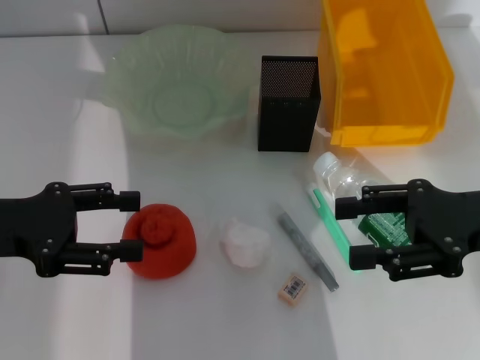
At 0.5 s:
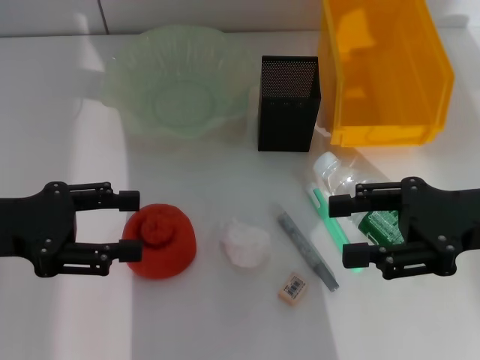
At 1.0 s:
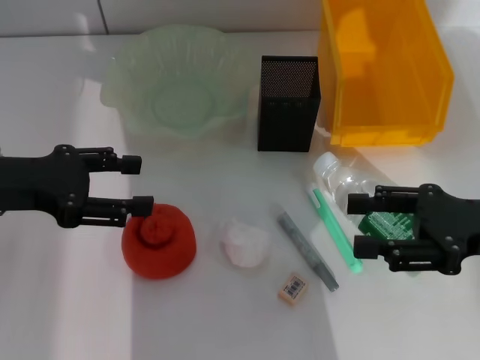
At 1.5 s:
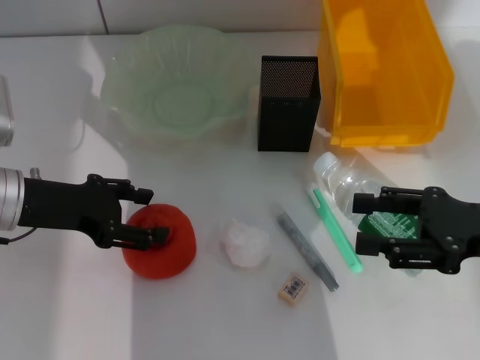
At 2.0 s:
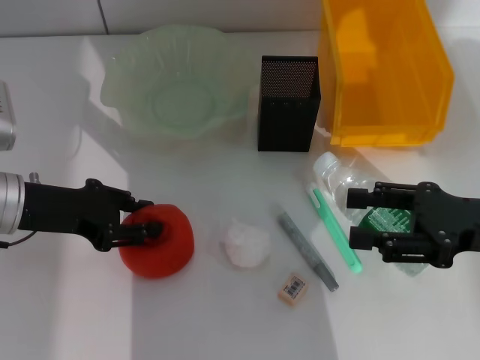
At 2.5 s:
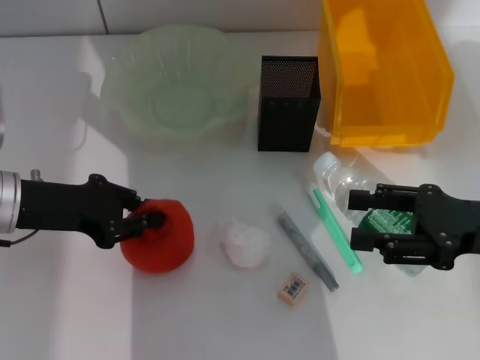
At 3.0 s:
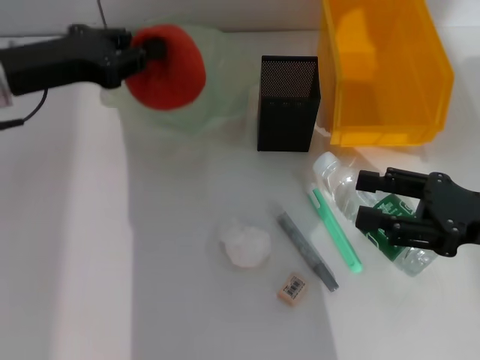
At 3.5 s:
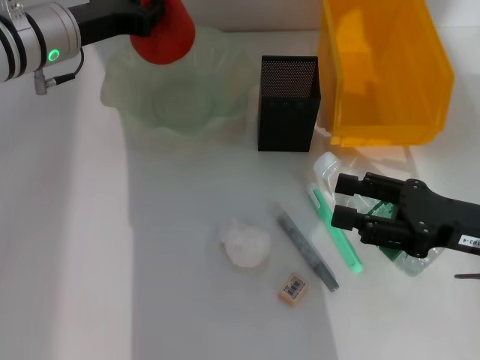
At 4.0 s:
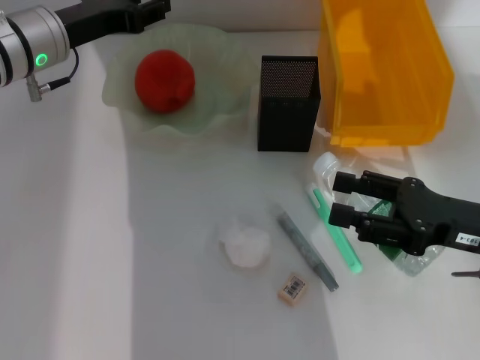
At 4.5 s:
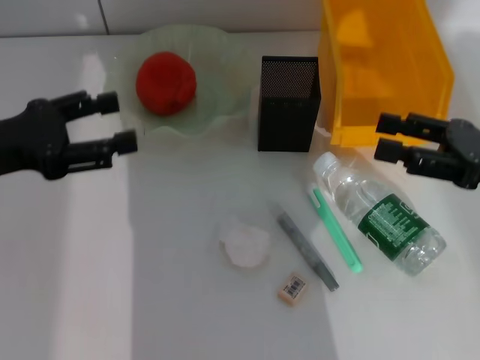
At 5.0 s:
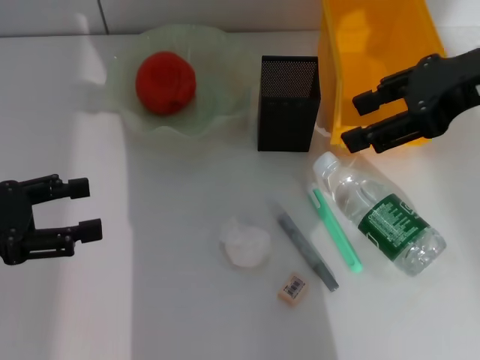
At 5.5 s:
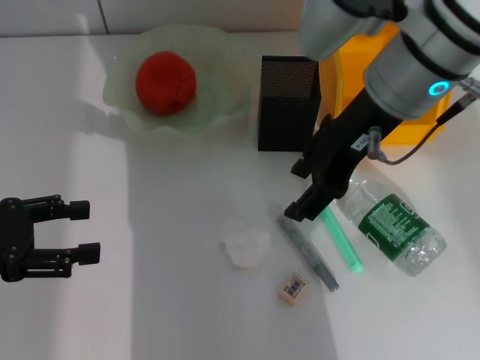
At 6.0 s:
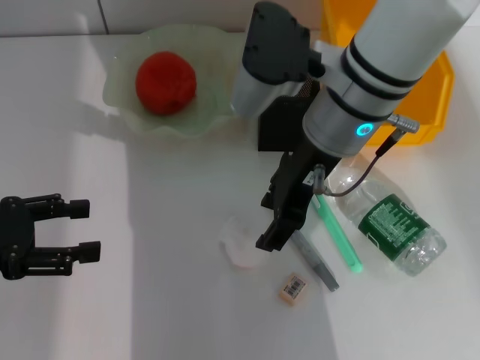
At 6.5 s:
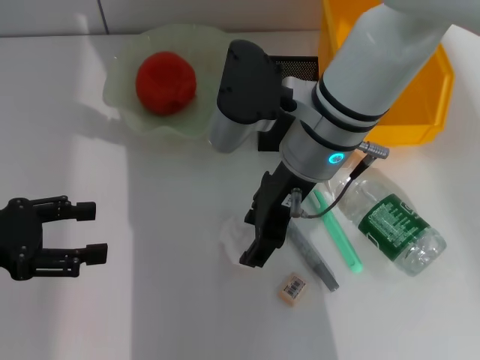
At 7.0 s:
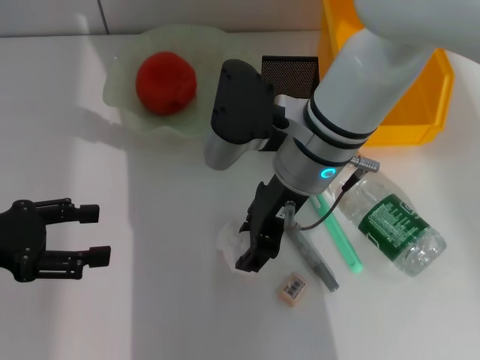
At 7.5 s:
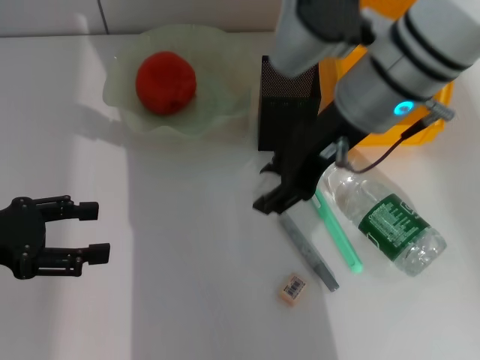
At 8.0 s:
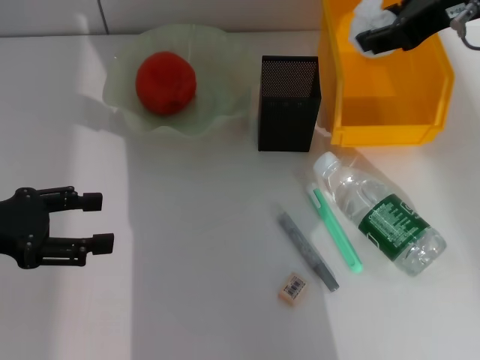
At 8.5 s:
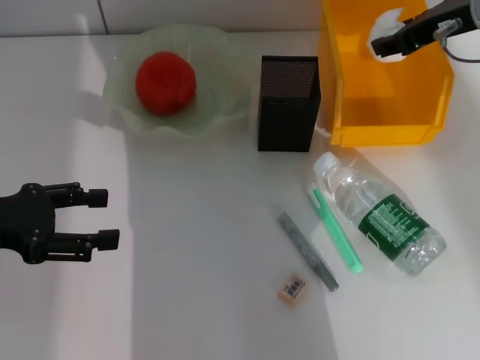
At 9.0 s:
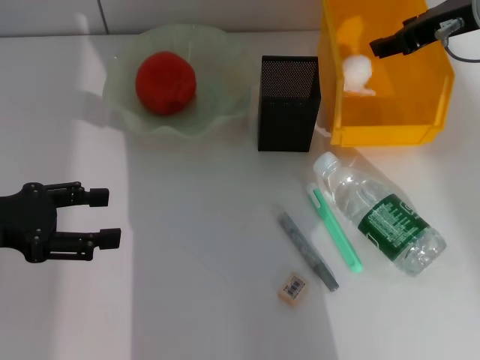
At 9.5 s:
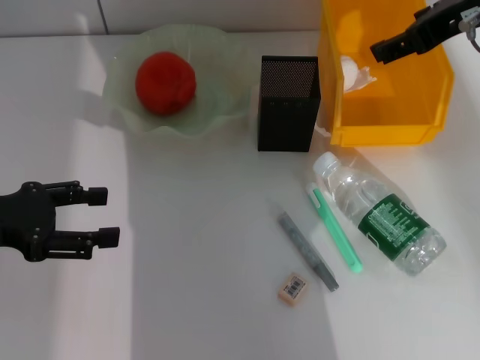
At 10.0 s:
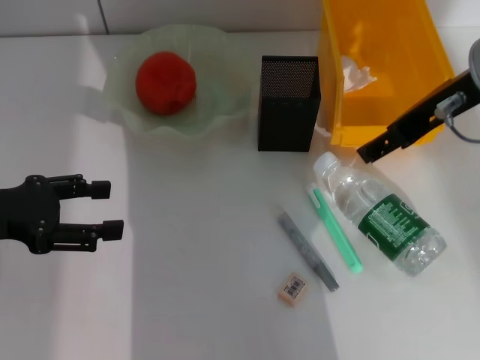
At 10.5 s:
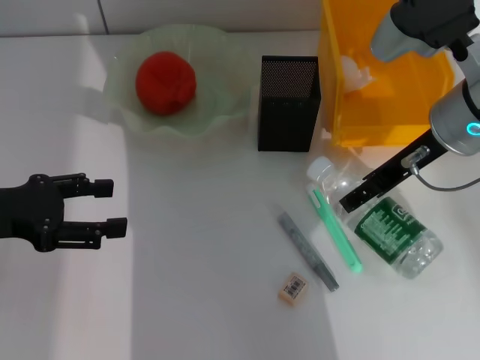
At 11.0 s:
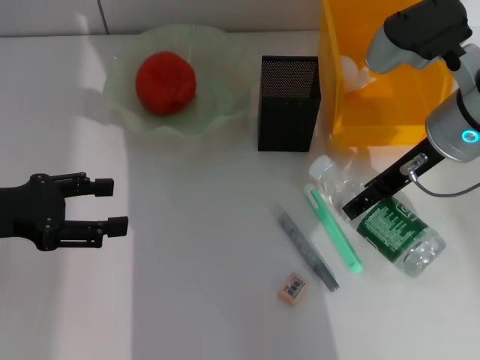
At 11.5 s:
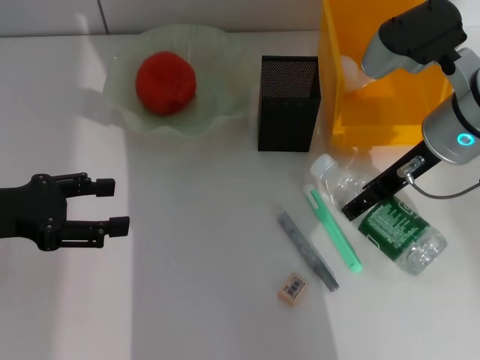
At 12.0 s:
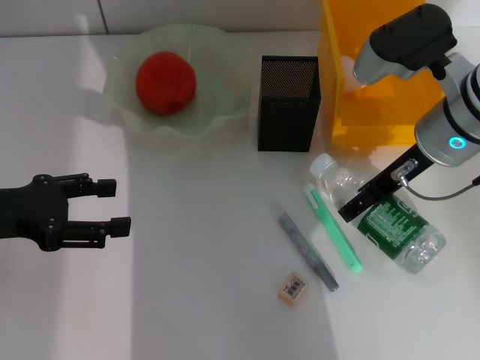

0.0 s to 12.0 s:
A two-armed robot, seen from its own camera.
Step, 0.0 to 2.0 s: Grab the orange with the left hand.
Step, 2.5 to 4.0 s: Place the orange into the fruit bowl with the left hand.
Step, 4.5 to 6.5 s: Grab the paper ball with the right hand.
Step, 7.5 to 9.0 s: Place the paper ball into the trash can with the right hand.
0.0 to 2.0 s: The left gripper goes roughly 5 cm forward, and closes.
2.0 to 4.0 s: The left gripper shifts approximately 10 cm forward.
4.0 to 6.0 s: The right gripper travels to the left, forward and upward by roughly 25 cm. The left gripper goes some 20 cm backward and to the left, and opens its fingers.
6.0 to 8.0 s: The right gripper goes roughly 15 cm to the right and upward.
8.0 to 10.0 s: The right gripper moves some 5 cm, and opens its fingers.
10.0 to 12.0 s: The right gripper is displaced downward by some 10 cm.

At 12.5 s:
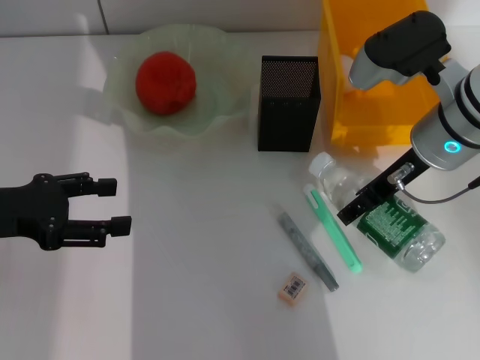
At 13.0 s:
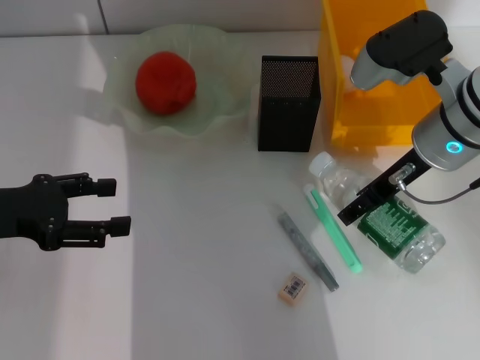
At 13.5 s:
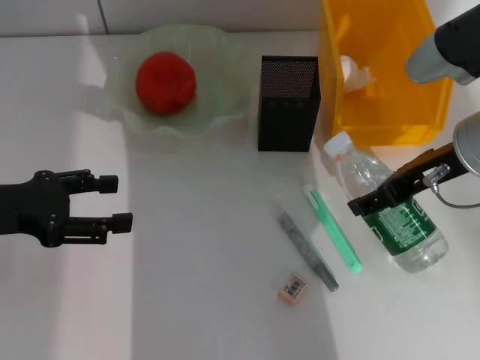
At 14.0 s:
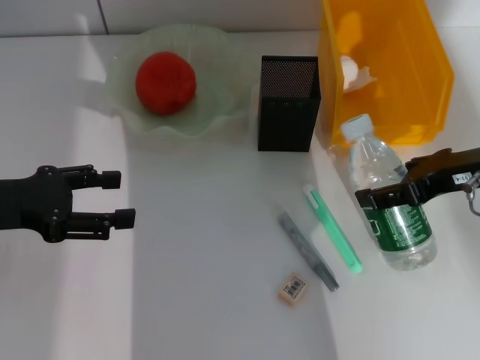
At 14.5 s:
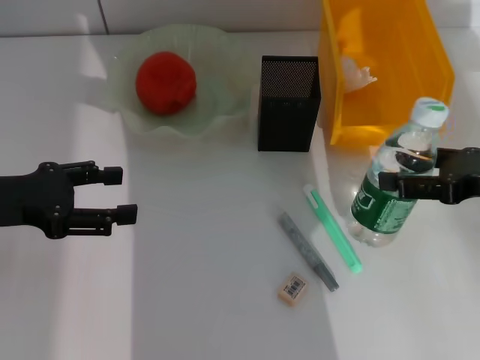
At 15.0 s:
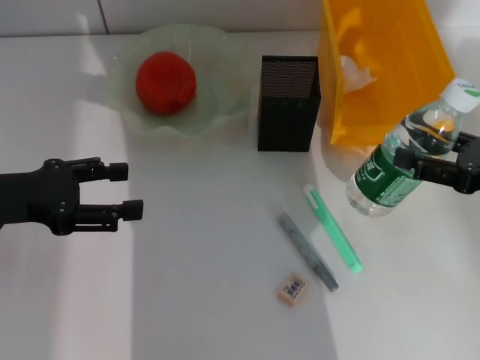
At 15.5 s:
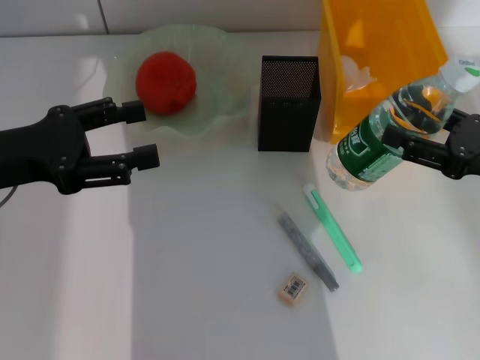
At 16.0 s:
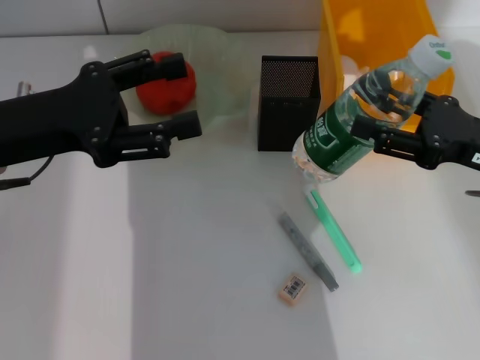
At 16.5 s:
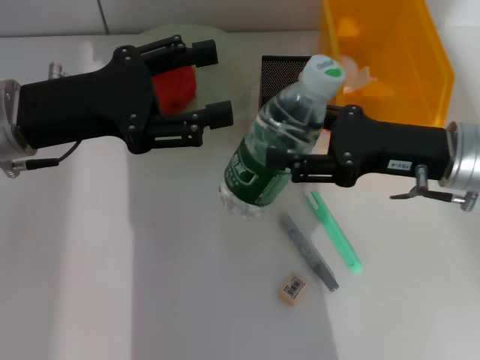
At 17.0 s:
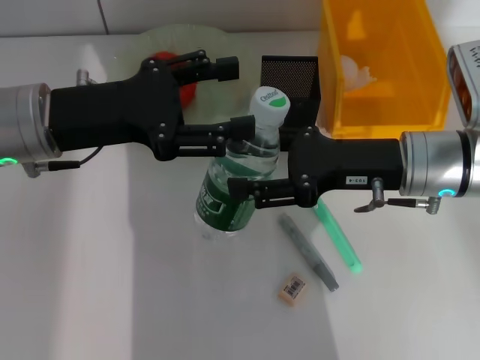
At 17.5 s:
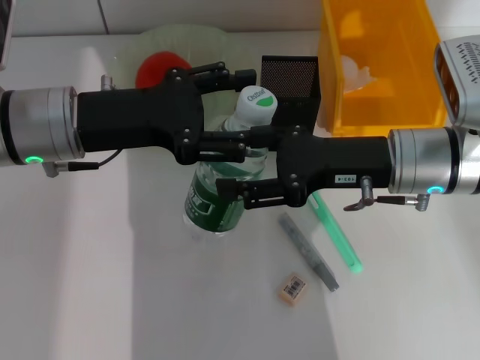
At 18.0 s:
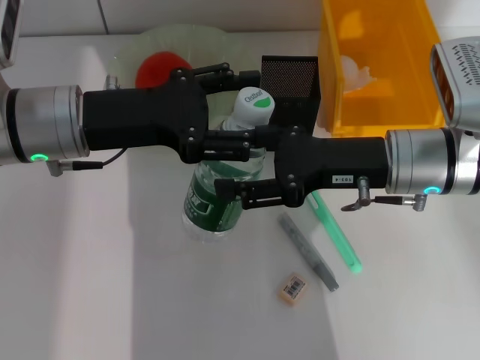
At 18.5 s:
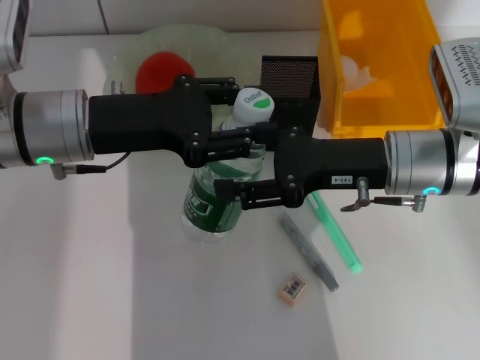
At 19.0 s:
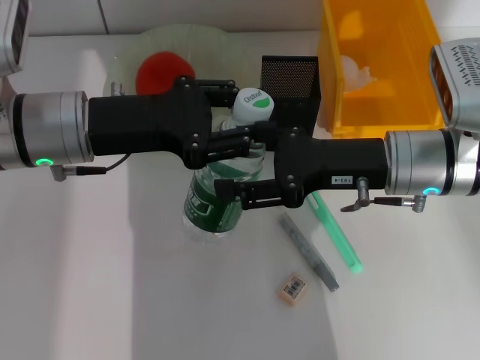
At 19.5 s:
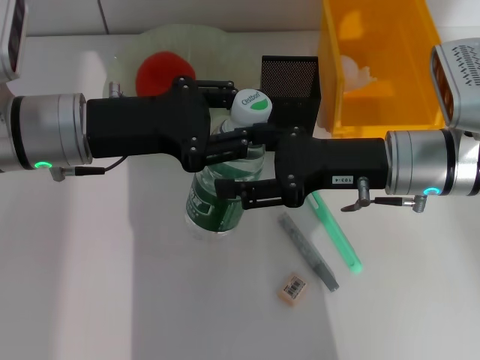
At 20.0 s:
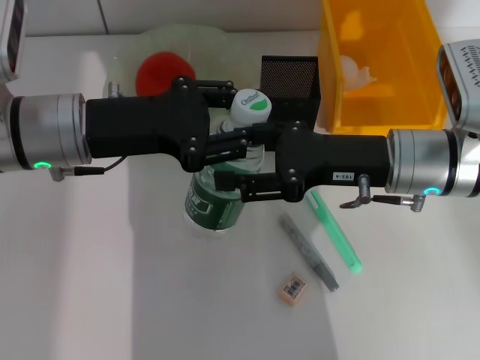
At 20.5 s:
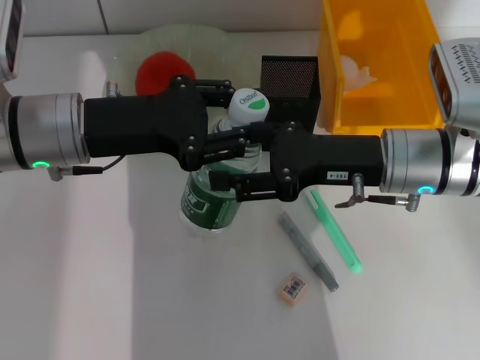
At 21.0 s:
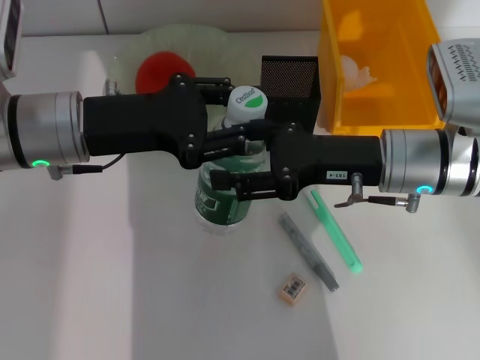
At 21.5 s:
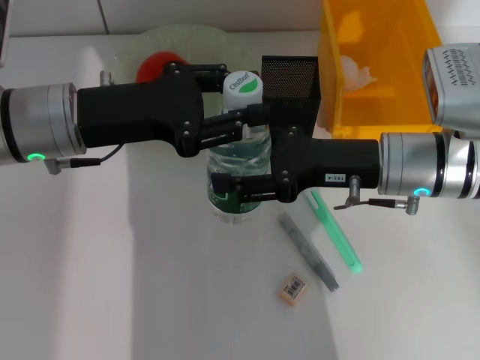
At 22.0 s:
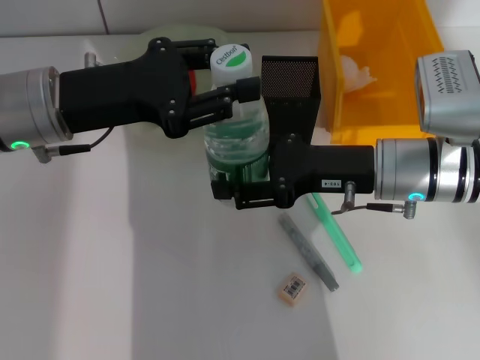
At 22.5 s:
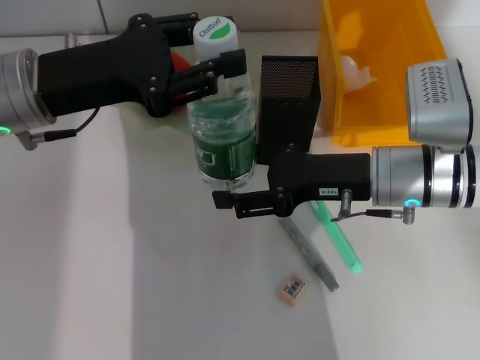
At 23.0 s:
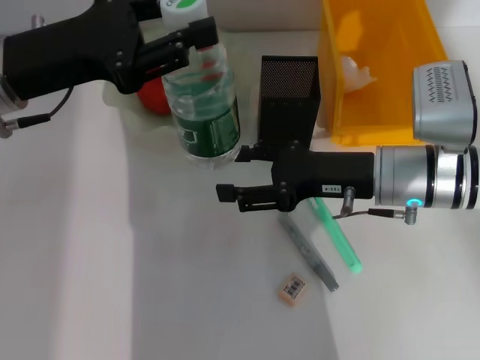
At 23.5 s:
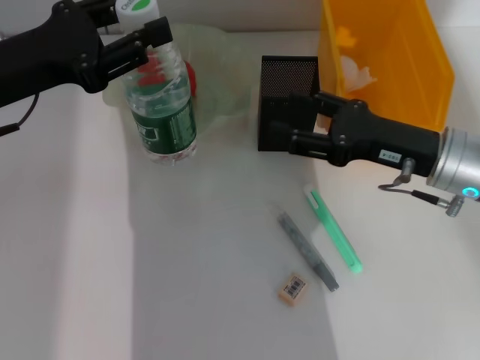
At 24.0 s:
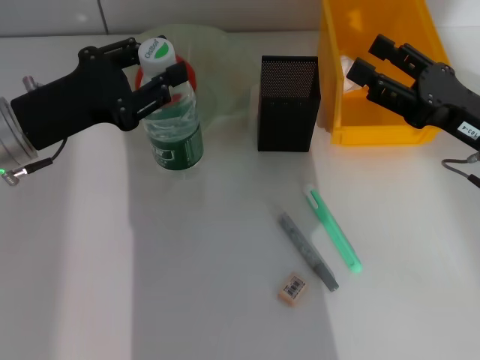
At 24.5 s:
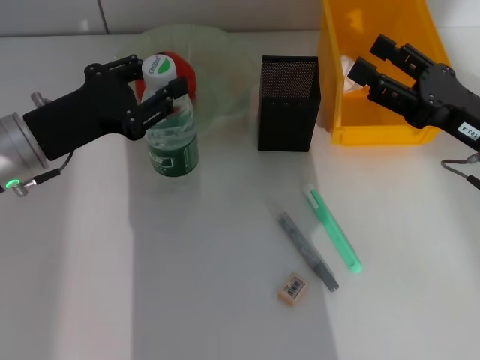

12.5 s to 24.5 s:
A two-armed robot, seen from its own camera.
Step, 13.0 to 23.0 s: Pass the water bottle from the right hand to the left hand.
12.5 to 14.5 s: The right gripper moves to the right and backward, some 15 cm.
14.5 to 16.5 s: The left gripper is displaced to the right by approximately 10 cm; the right gripper moves to the left, some 10 cm.
16.5 to 18.5 s: The right gripper shifts by about 5 cm.
18.5 to 20.5 s: The left gripper closes.
22.5 to 24.5 s: The left gripper travels downward by some 5 cm, while the right gripper heads to the right, covering some 10 cm.

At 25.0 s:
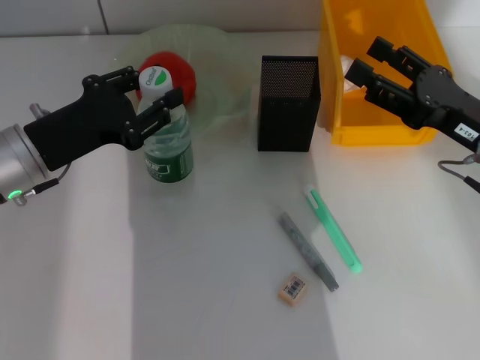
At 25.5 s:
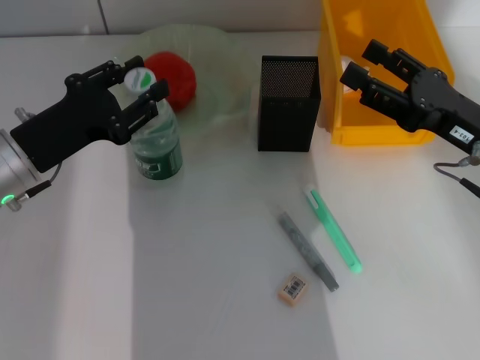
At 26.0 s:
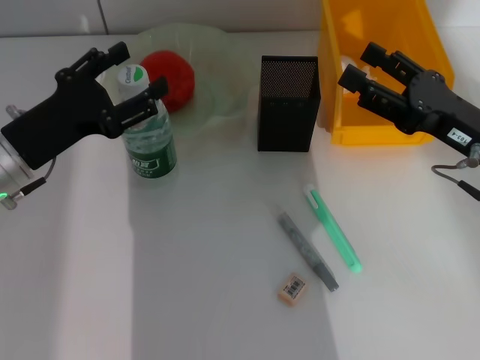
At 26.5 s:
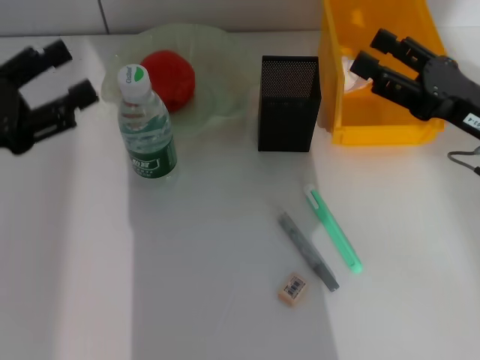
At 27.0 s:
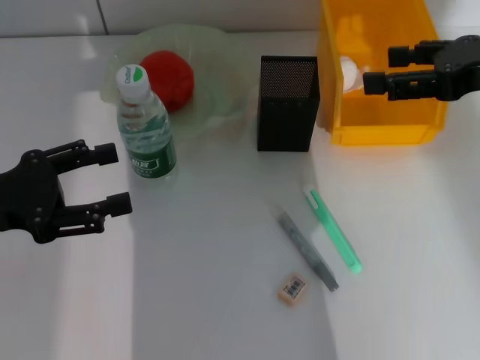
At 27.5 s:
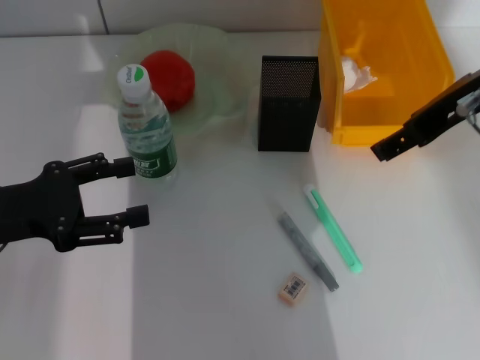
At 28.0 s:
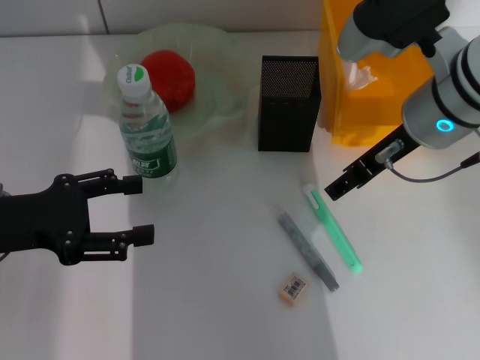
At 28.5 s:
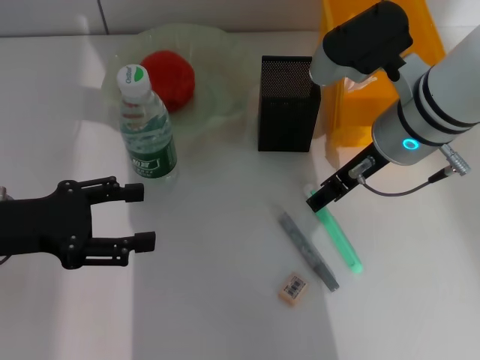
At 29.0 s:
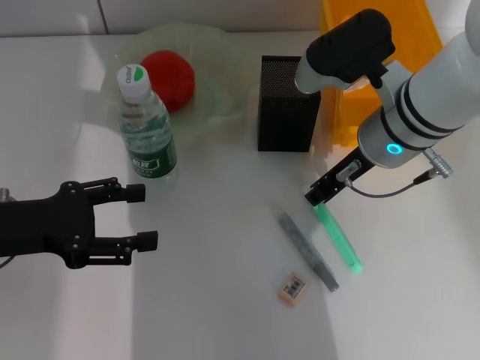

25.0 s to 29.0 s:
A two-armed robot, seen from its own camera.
25.0 to 27.0 s: The left gripper moves to the left and backward, roughly 10 cm, and opens, while the right gripper heads upward, covering about 15 cm.
27.0 to 29.0 s: The right gripper goes some 15 cm to the left and downward, and closes.
